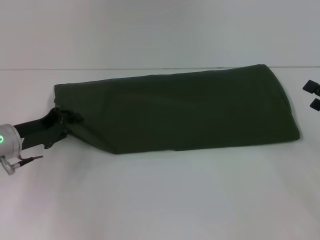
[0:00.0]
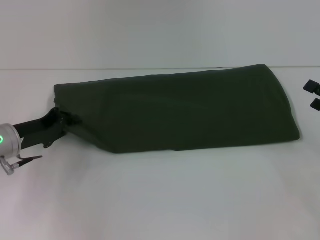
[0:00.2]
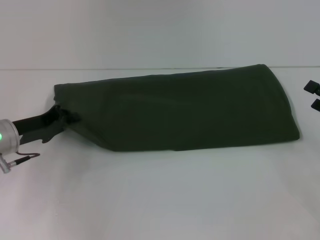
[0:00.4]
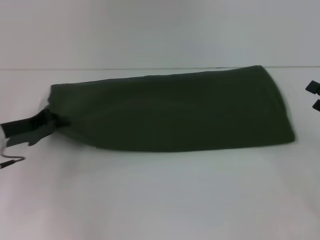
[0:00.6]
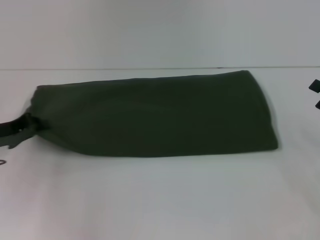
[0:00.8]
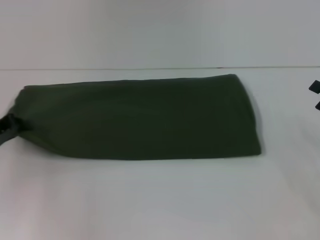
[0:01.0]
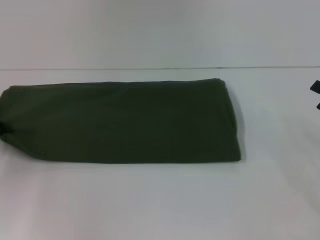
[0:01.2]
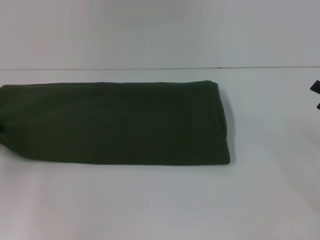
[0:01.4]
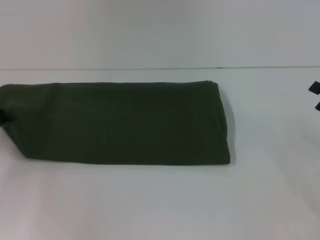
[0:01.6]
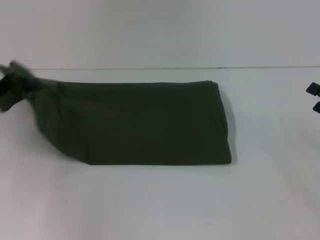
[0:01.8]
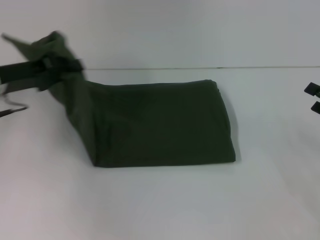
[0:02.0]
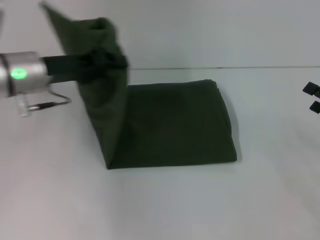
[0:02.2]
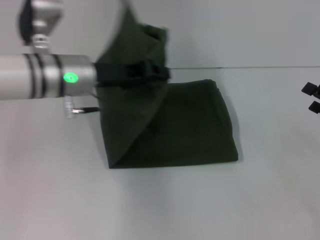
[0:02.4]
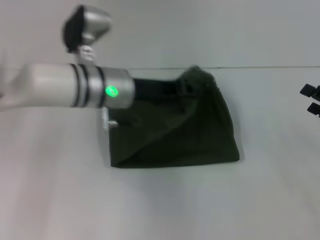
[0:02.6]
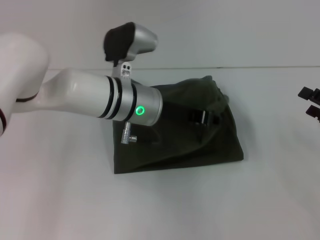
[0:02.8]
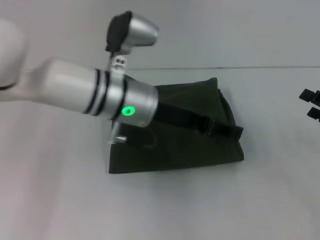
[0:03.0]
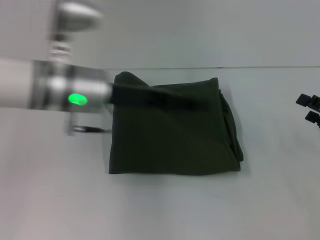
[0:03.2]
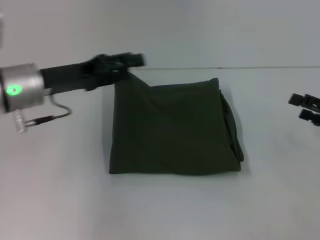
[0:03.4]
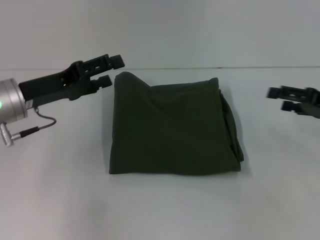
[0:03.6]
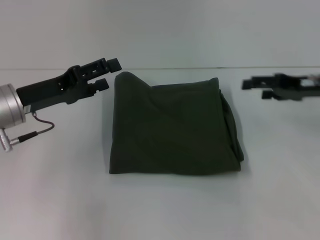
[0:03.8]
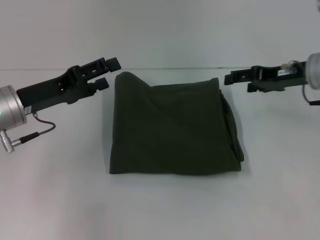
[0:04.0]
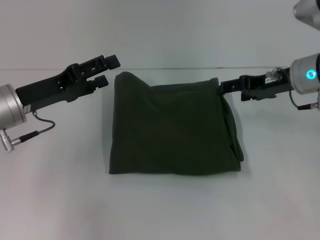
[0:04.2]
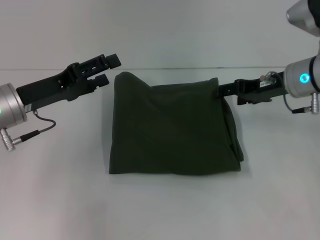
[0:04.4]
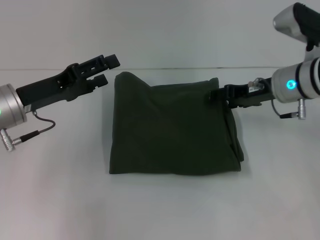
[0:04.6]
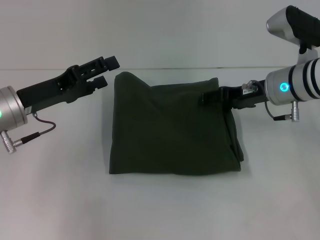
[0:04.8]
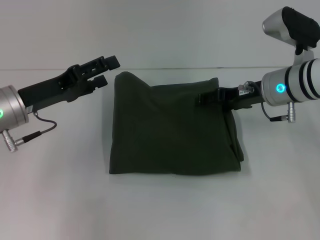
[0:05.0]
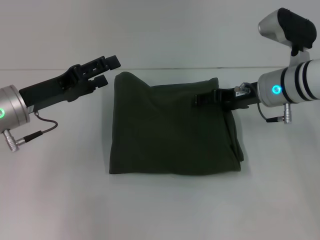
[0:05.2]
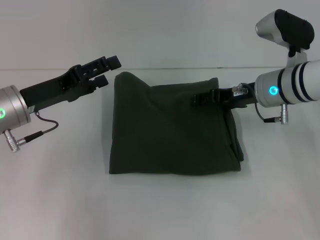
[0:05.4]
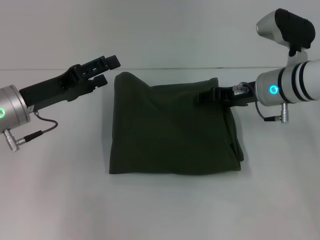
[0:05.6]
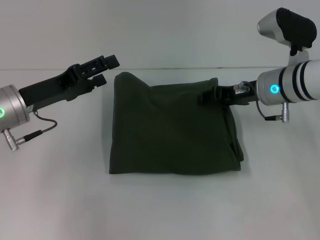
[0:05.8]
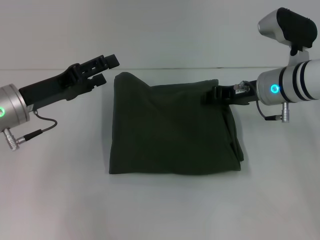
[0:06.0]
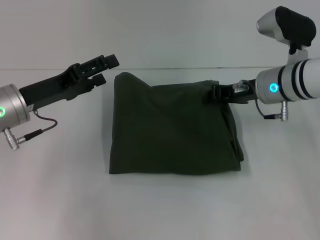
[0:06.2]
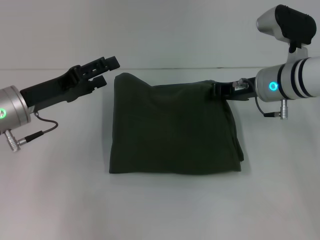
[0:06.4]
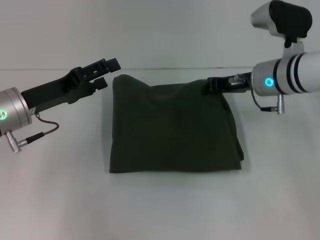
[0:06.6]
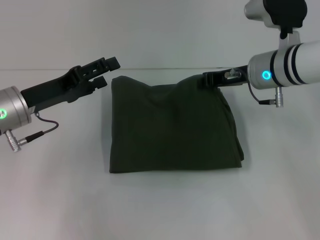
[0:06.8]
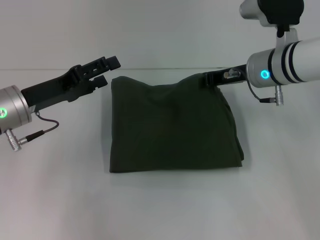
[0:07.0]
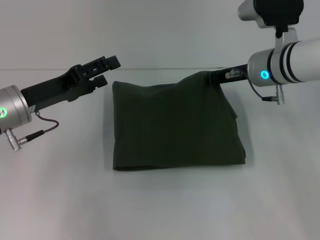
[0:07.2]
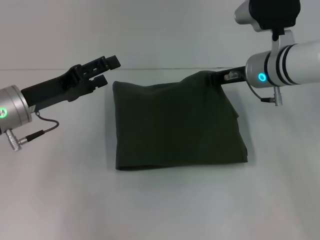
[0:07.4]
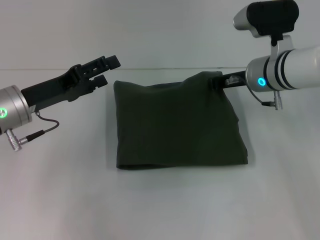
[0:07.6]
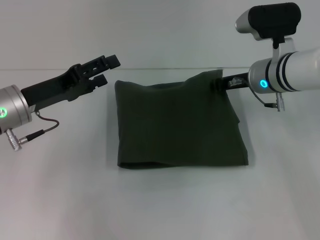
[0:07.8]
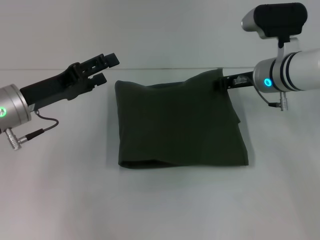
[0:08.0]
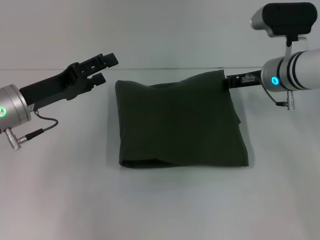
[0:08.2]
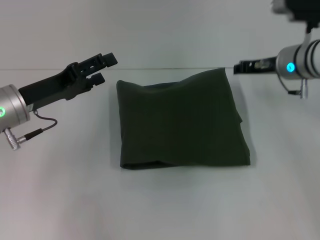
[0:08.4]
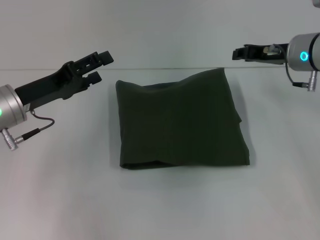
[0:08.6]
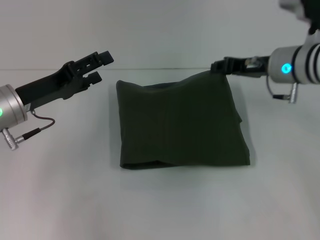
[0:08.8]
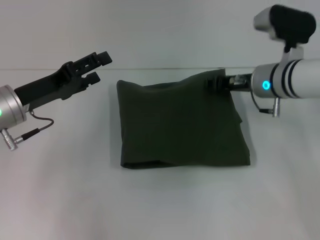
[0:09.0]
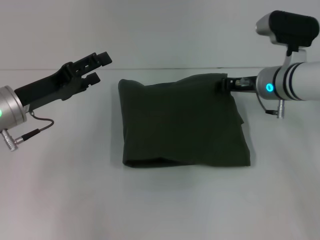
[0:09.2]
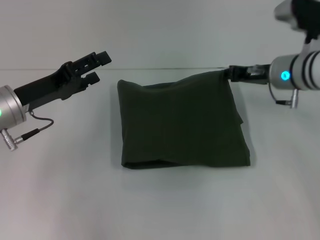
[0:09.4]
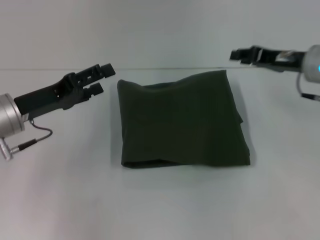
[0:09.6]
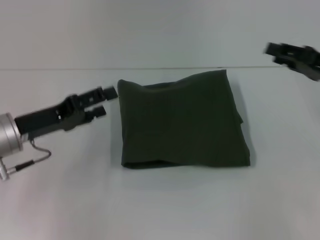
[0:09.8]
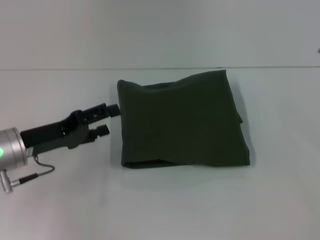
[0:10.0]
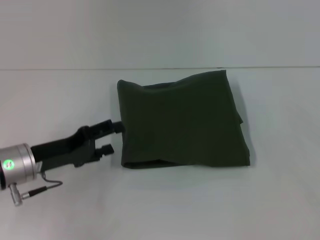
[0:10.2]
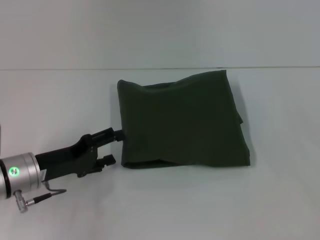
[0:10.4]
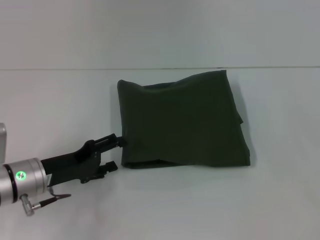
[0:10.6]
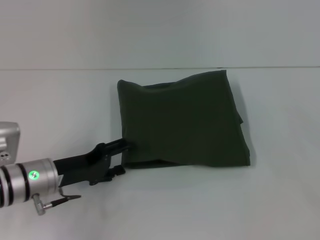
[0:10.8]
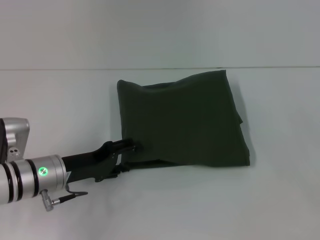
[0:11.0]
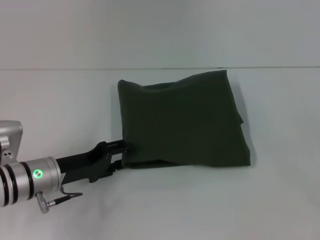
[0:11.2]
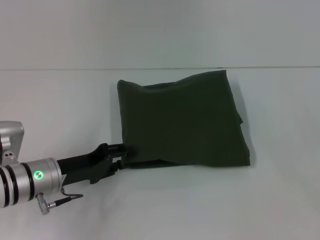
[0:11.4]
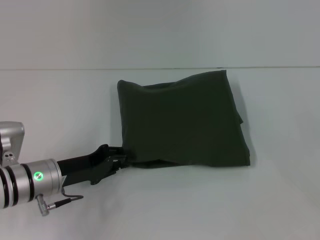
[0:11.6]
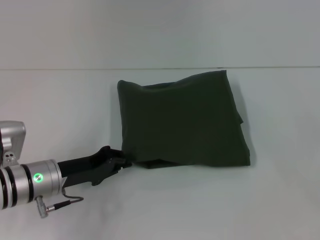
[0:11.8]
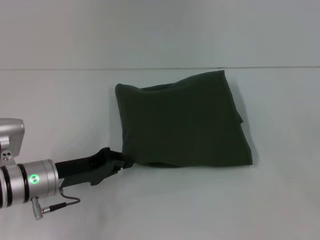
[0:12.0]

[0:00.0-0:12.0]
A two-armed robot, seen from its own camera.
Step, 0:00.0 to 0:08.2: Fold the clothes with your left hand.
0:00.0 to 0:01.6: The left gripper moves to the left, approximately 10 cm, and closes up.
0:01.6 to 0:03.0: The left gripper goes some 30 cm to the right.
0:03.0 to 0:04.4: The left gripper moves to the left, about 15 cm, and opens. The right gripper shifts some 20 cm to the left, forward and upward.
0:04.4 to 0:06.0: The grippers stay close to where they were, moving slightly.
0:06.0 to 0:07.6: The right gripper closes up.
0:09.0 to 0:10.4: The right gripper heads to the right and backward, covering approximately 25 cm, and opens up. Meanwhile the left gripper shifts some 5 cm downward.
0:10.4 to 0:12.0: The left gripper closes its fingers.

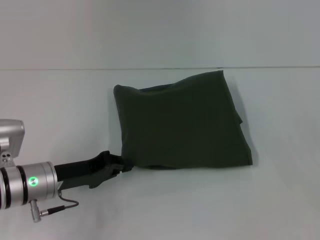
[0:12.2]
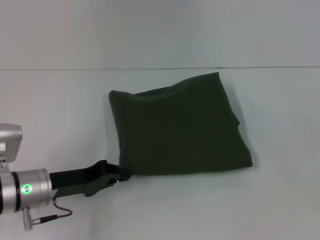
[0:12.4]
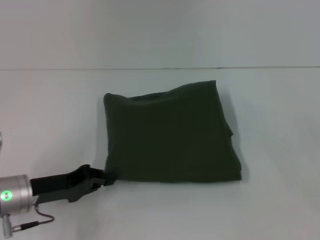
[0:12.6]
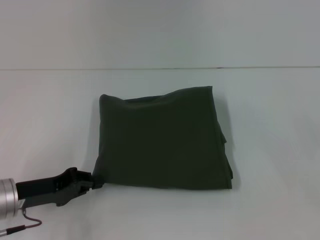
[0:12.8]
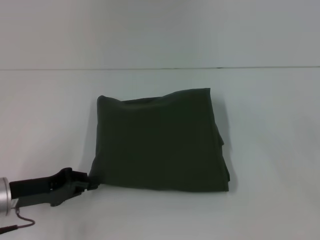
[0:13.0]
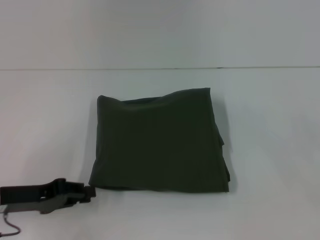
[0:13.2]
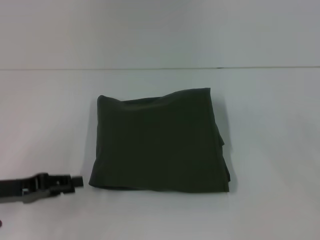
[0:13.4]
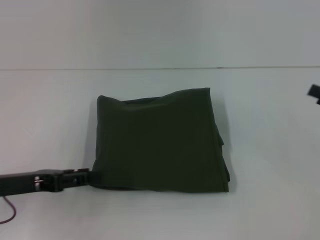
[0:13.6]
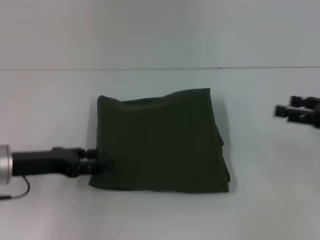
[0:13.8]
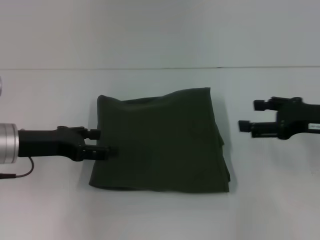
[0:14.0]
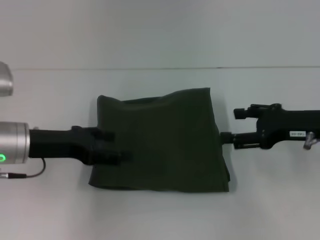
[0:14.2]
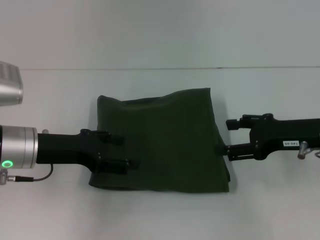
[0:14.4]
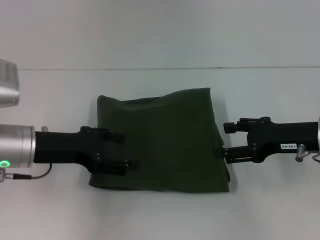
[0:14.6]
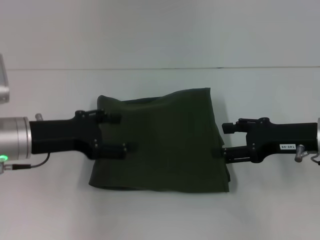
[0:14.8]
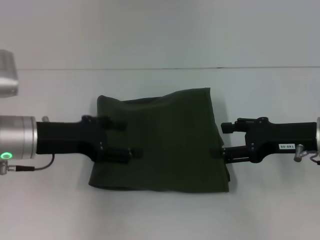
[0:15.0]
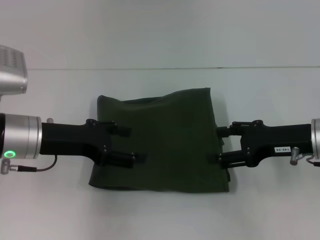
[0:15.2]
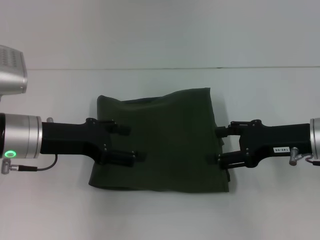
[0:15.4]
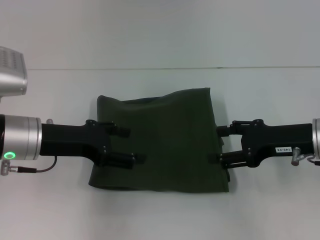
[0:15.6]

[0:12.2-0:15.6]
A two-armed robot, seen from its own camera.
0:12.2 to 0:13.8: The left gripper is displaced upward and to the left by approximately 5 cm, and opens; the right gripper changes place by about 5 cm.
0:13.8 to 0:15.6: The right gripper goes some 10 cm to the left. Meanwhile the left gripper moves approximately 5 cm, and opens its fingers.

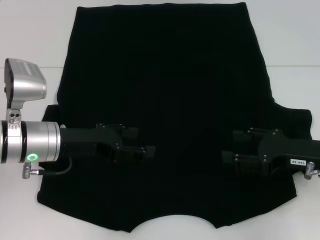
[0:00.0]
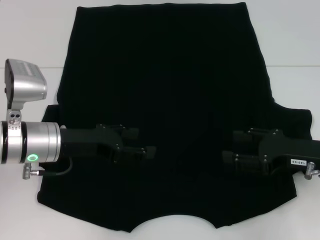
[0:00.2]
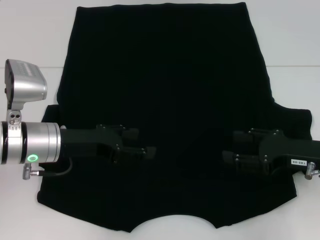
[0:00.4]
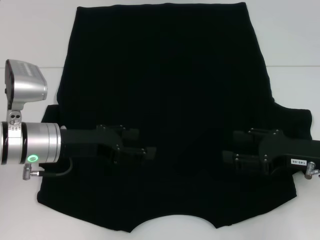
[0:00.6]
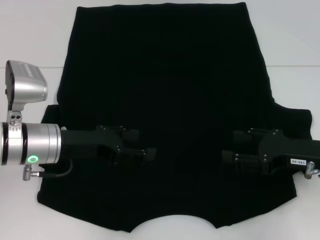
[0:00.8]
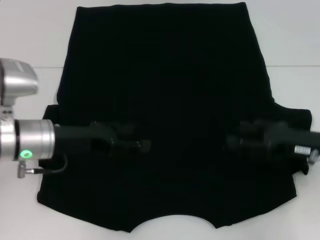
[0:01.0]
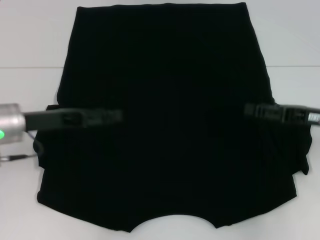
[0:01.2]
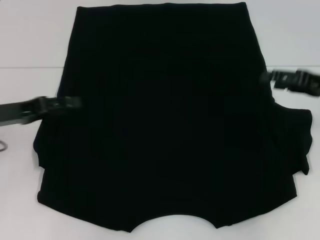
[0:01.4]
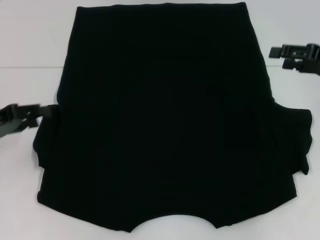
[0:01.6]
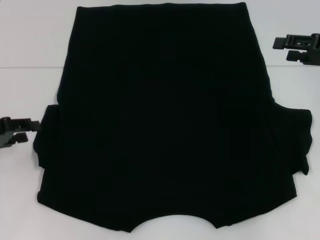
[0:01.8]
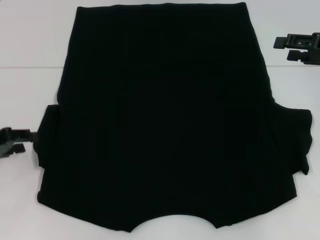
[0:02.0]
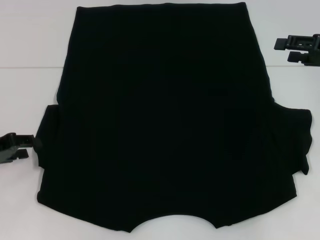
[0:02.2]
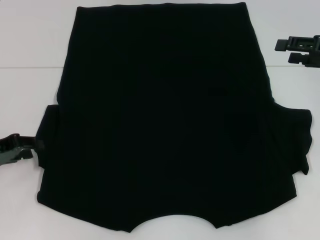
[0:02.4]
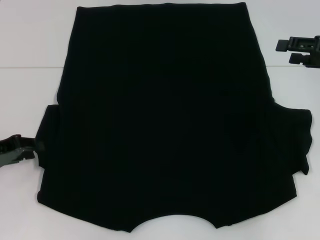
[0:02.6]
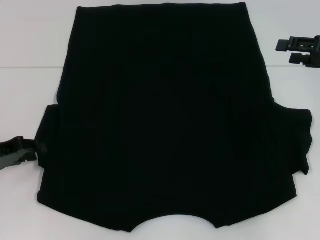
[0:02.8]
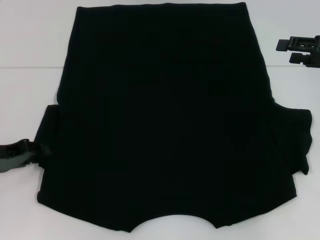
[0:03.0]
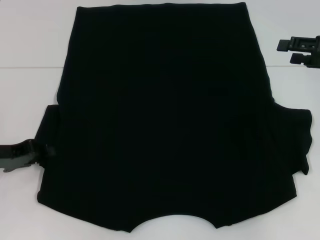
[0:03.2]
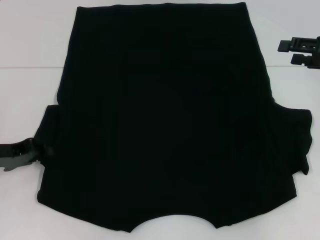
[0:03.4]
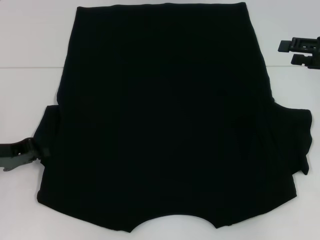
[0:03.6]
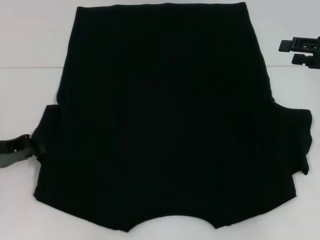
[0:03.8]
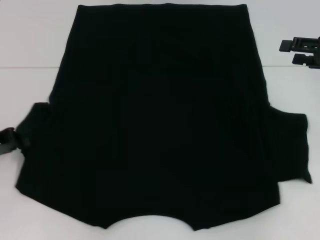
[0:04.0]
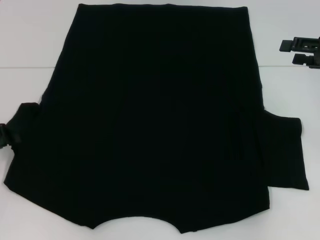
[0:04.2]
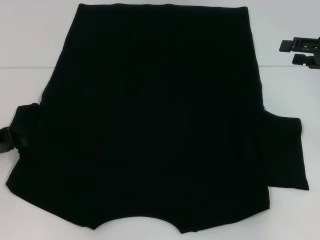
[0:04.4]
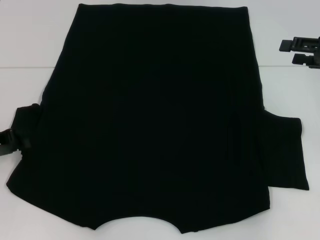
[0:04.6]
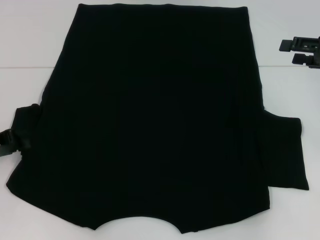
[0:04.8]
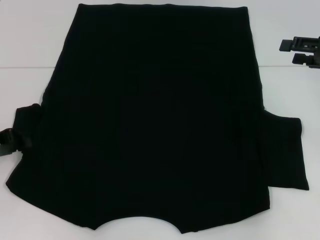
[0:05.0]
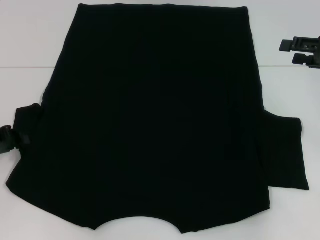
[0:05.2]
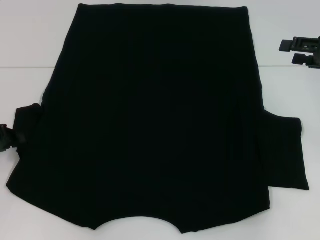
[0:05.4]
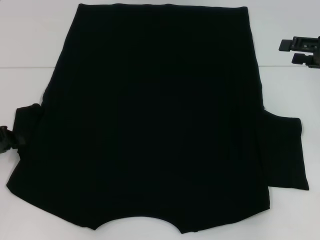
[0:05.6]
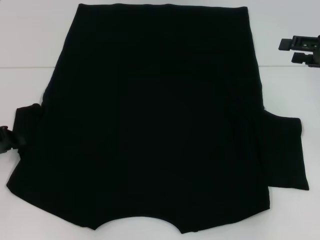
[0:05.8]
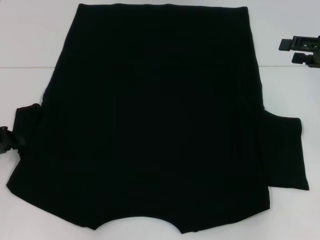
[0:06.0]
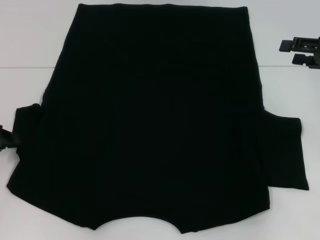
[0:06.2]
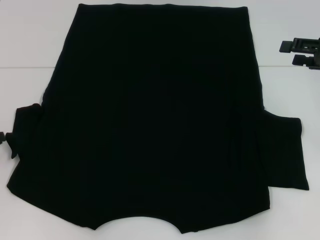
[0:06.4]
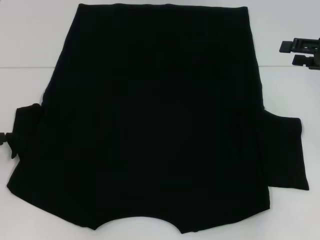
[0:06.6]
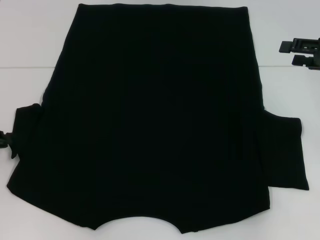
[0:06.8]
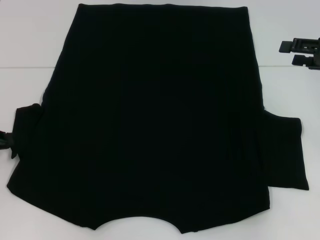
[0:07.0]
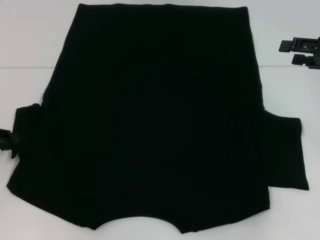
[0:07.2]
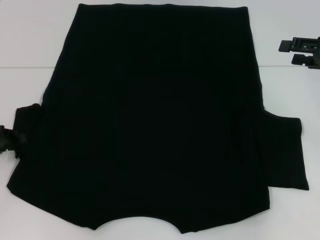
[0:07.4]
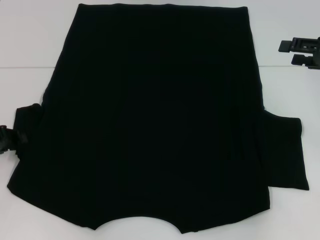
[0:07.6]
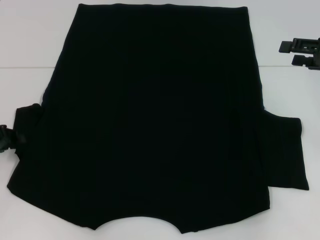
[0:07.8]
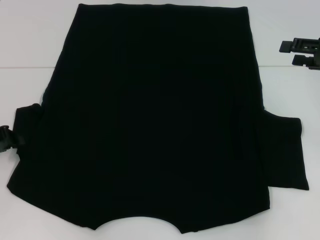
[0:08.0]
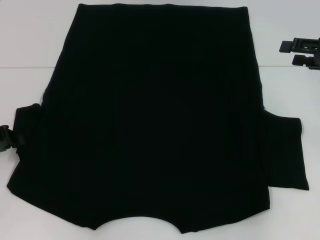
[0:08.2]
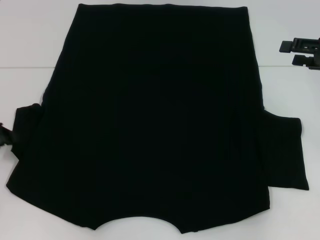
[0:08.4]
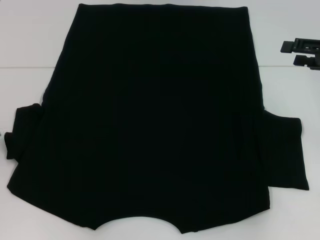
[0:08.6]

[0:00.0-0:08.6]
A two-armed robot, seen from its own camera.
0:00.0 to 0:01.4: The right gripper shifts roughly 10 cm forward and upward; the left gripper shifts roughly 10 cm to the left.
0:01.4 to 0:02.8: The left gripper changes place by roughly 5 cm, and closes up.
0:02.8 to 0:04.4: The left gripper closes.
0:04.4 to 0:05.8: The two grippers keep their place.
